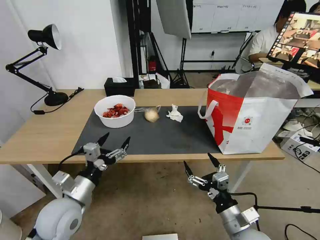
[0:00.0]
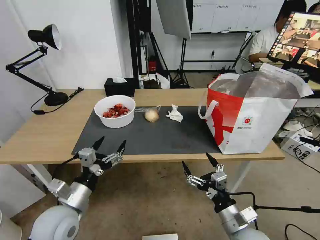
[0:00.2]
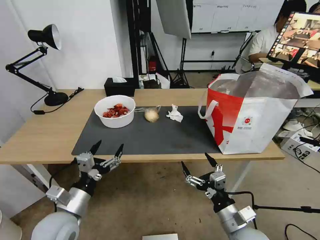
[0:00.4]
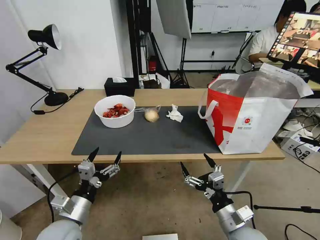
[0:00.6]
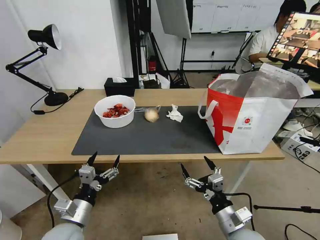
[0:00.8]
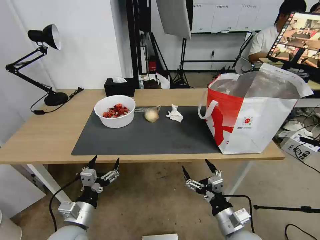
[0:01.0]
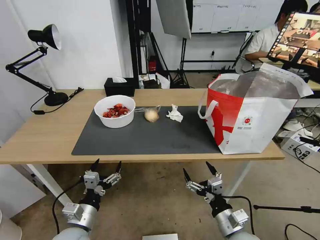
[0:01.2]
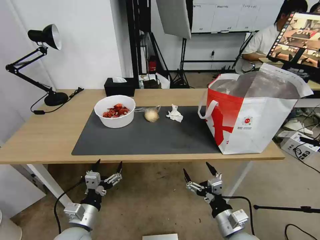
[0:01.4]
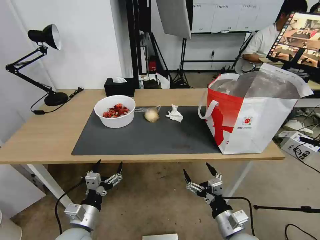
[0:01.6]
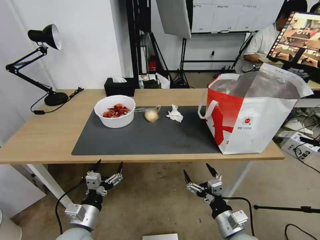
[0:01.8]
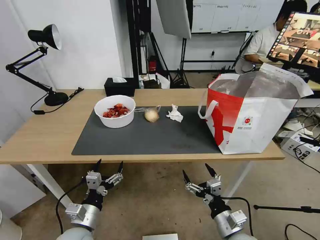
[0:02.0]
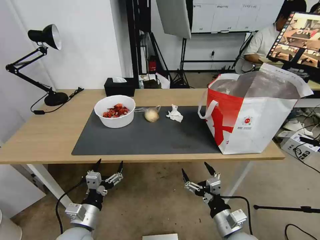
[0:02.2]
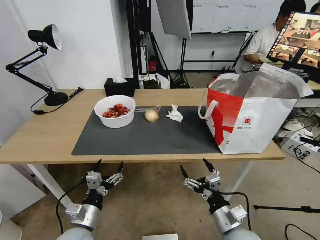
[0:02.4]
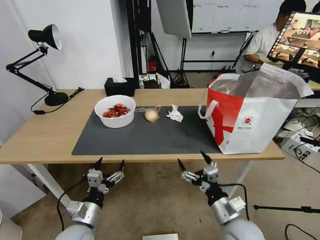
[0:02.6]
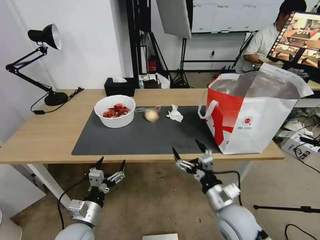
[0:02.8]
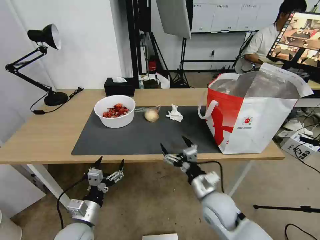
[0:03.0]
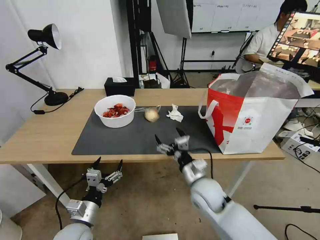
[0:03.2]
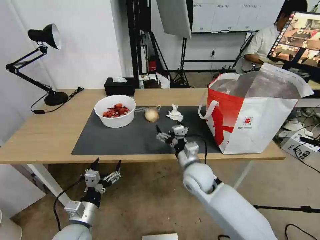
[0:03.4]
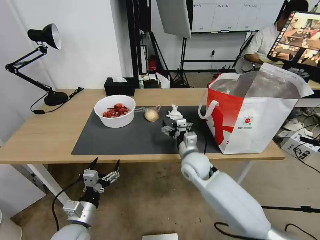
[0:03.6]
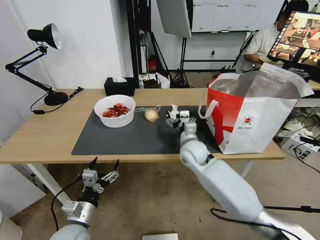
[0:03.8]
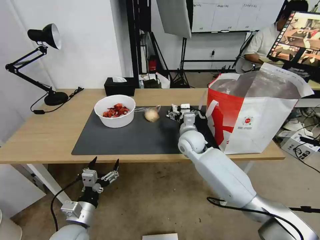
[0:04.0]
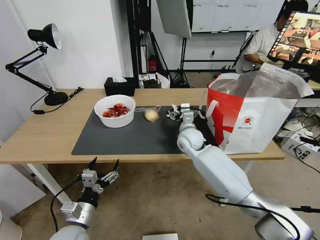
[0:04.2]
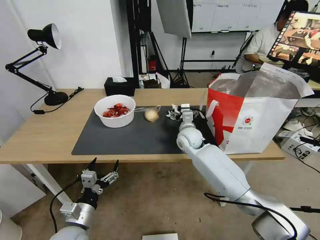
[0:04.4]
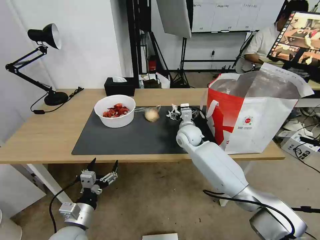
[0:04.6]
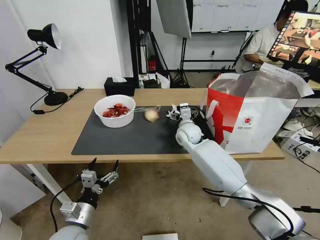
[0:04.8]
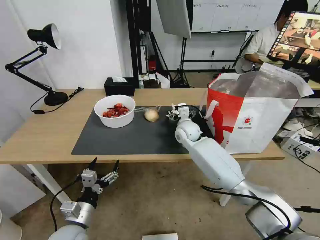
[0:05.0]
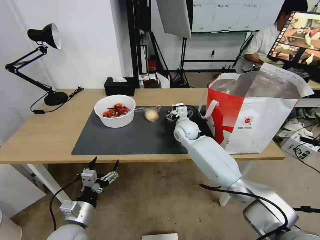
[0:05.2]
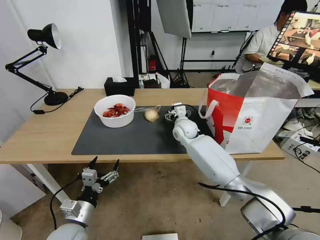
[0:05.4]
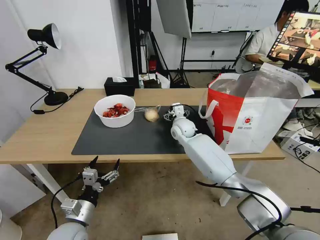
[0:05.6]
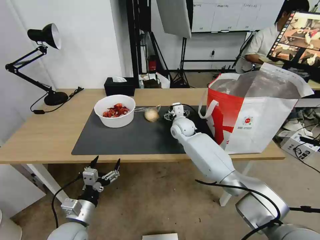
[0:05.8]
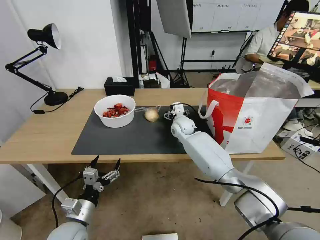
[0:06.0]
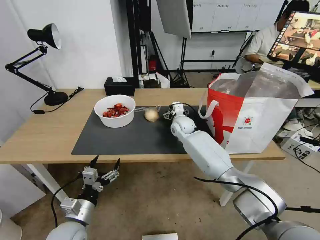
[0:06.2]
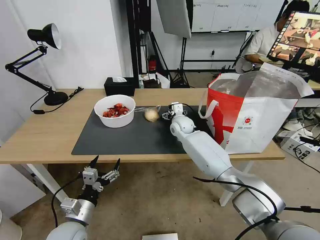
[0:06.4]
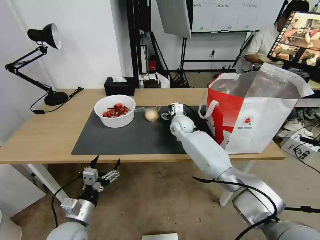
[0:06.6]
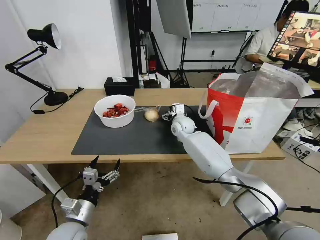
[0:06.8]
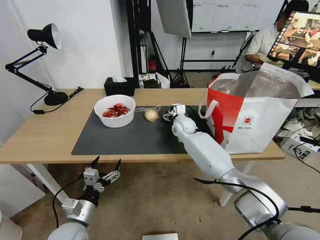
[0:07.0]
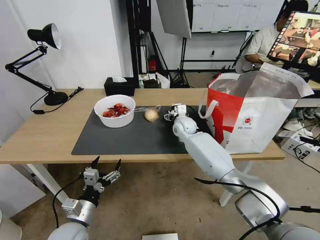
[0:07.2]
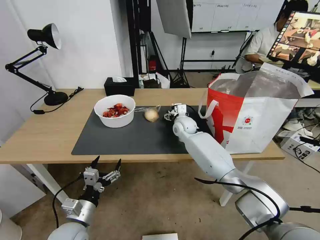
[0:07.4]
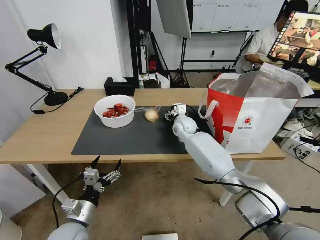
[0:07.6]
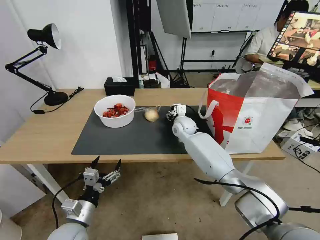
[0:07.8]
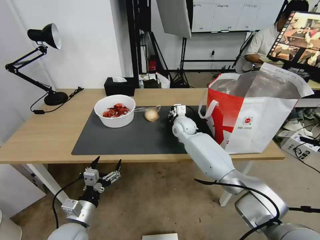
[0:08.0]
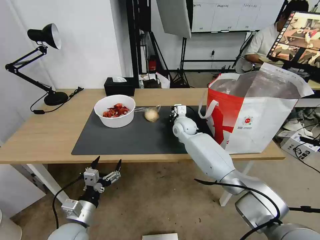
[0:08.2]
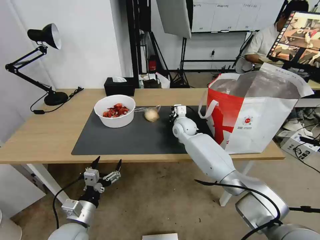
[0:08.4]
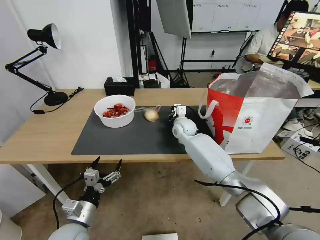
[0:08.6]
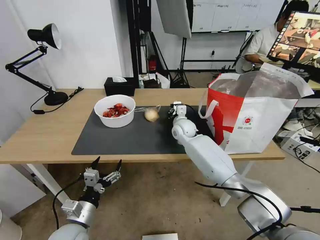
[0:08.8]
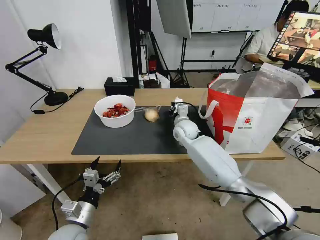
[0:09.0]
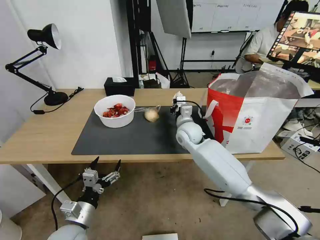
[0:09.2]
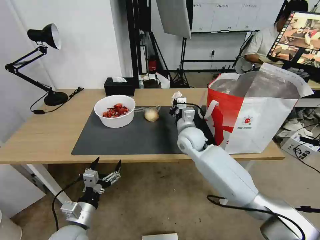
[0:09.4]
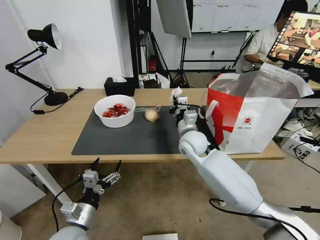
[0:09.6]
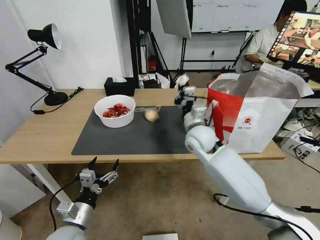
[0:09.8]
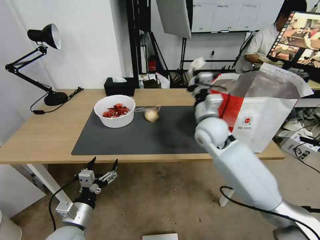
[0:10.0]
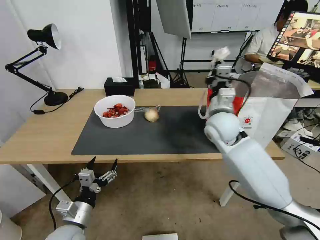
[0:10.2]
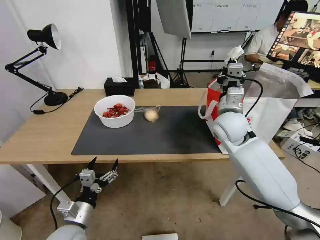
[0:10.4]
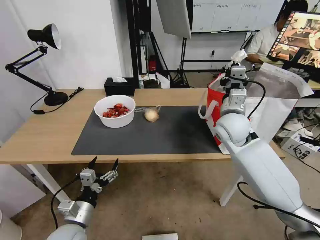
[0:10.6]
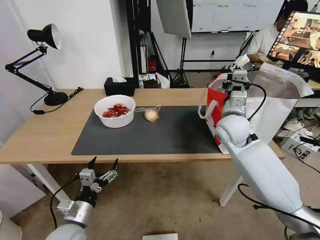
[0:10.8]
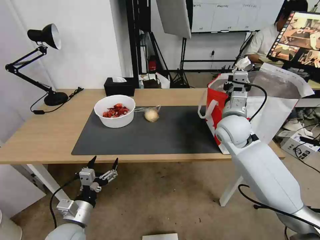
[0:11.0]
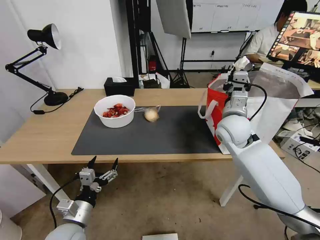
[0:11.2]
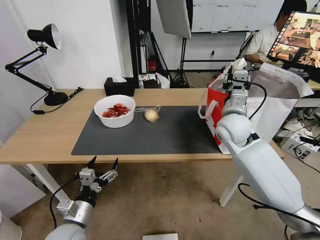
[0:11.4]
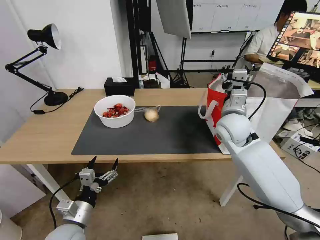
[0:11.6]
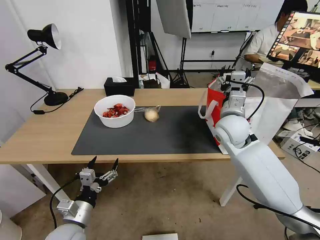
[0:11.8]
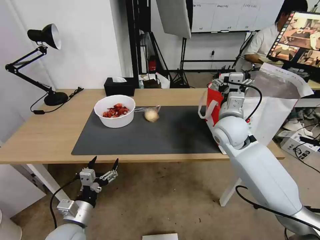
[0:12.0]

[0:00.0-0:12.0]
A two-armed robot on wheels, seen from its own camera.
Task of the whole recording: Pick up the trash from the table and place it into the takeout bag.
0:00.0 to 0:01.6: The left gripper moves downward and backward, about 10 cm.
0:01.6 to 0:03.0: The right gripper shifts some 10 cm forward and to the left.
0:03.0 to 0:04.4: The right gripper goes some 25 cm forward.
0:04.4 to 0:06.0: The right gripper shifts about 5 cm forward.
0:06.0 to 0:07.6: The grippers move only a little.
0:07.6 to 0:09.0: The right gripper closes its fingers.
0:09.0 to 0:10.4: The right gripper moves upward, to the right and backward, approximately 20 cm.
0:10.4 to 0:12.0: The right gripper opens up.

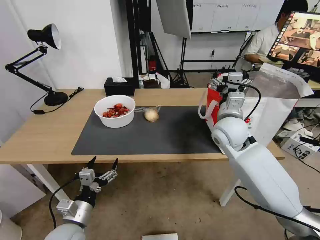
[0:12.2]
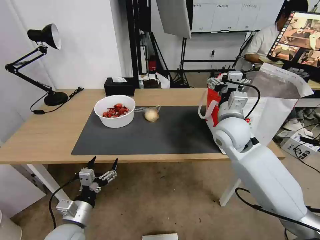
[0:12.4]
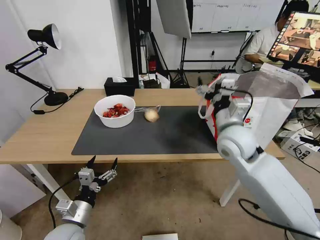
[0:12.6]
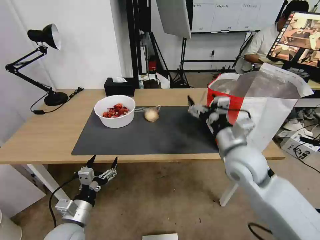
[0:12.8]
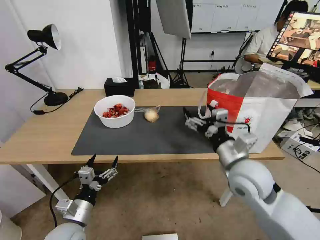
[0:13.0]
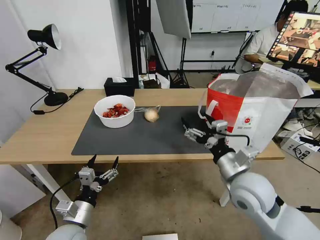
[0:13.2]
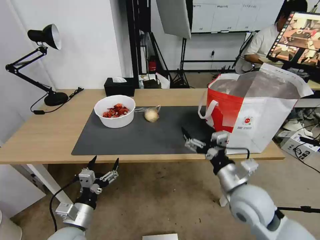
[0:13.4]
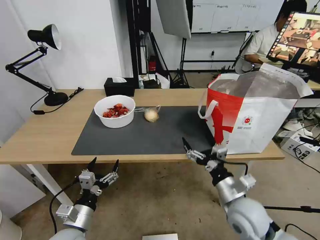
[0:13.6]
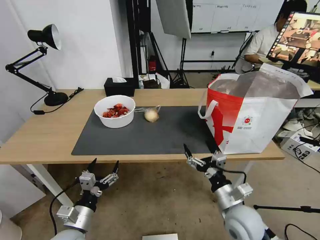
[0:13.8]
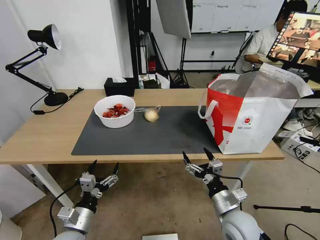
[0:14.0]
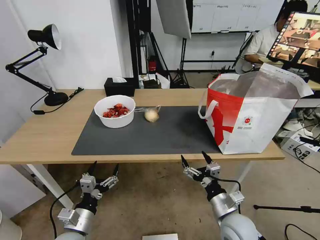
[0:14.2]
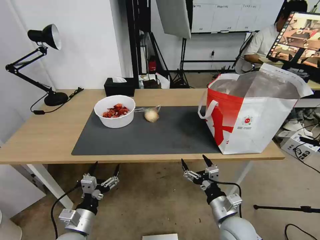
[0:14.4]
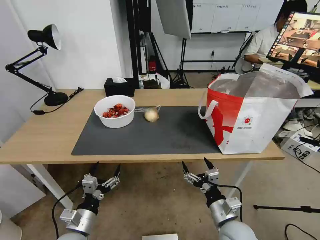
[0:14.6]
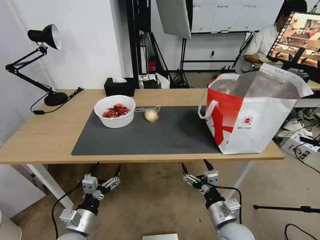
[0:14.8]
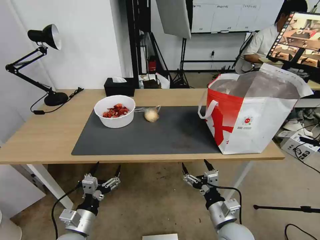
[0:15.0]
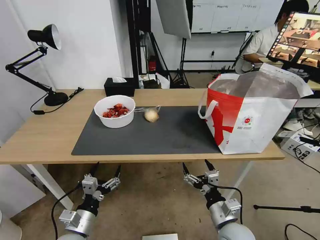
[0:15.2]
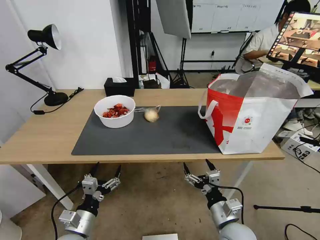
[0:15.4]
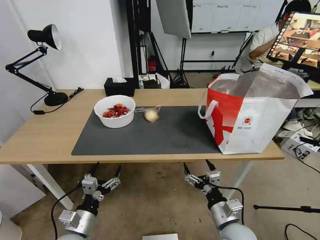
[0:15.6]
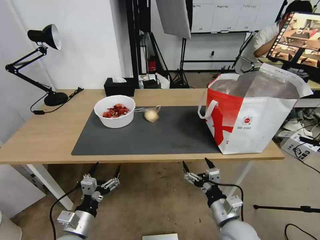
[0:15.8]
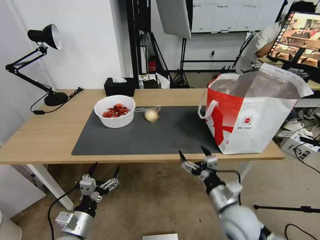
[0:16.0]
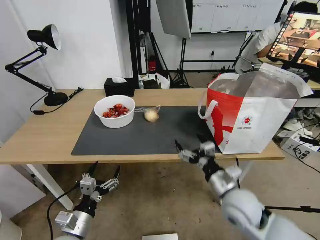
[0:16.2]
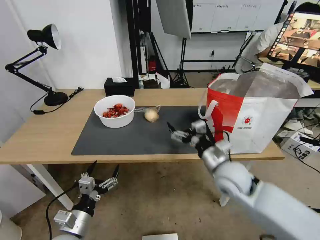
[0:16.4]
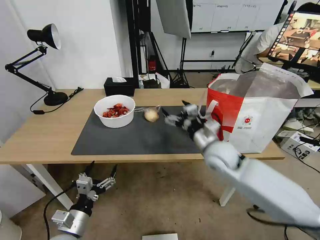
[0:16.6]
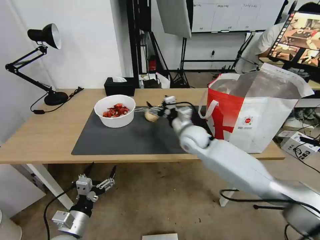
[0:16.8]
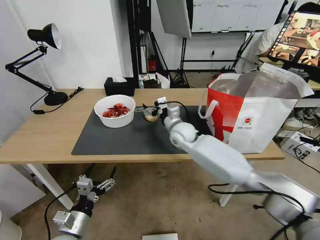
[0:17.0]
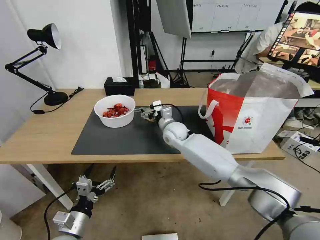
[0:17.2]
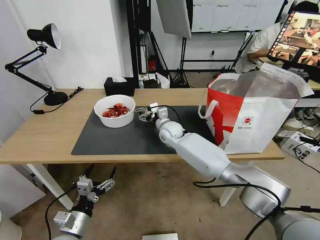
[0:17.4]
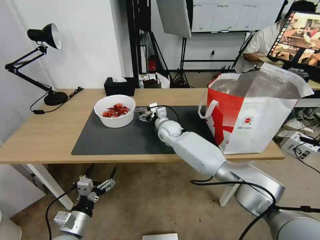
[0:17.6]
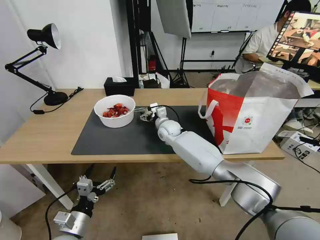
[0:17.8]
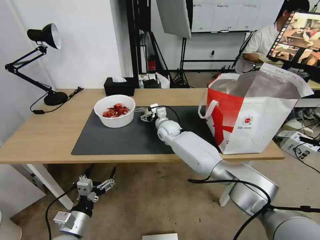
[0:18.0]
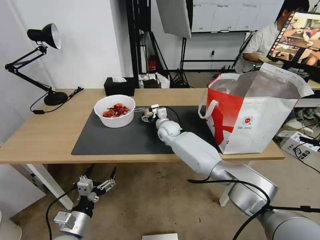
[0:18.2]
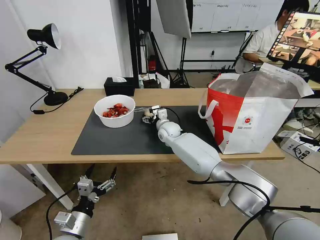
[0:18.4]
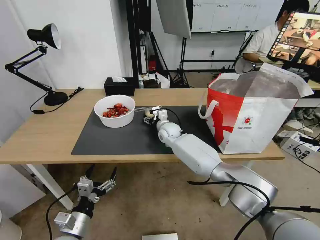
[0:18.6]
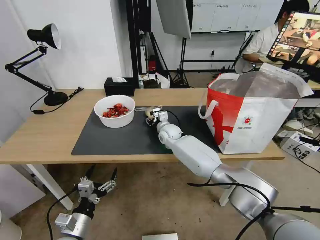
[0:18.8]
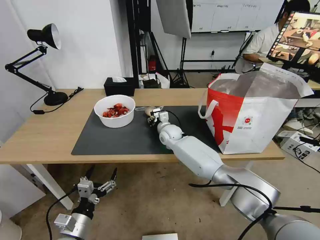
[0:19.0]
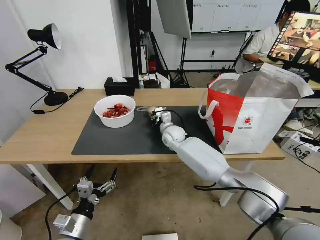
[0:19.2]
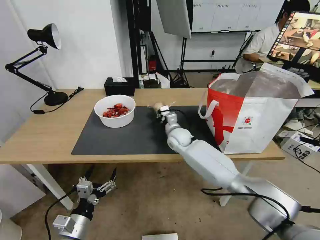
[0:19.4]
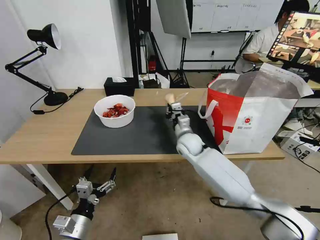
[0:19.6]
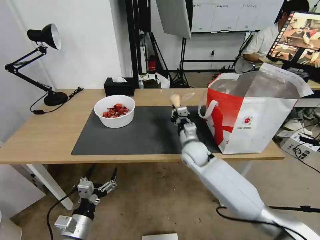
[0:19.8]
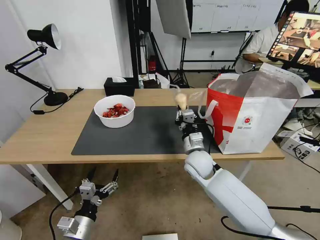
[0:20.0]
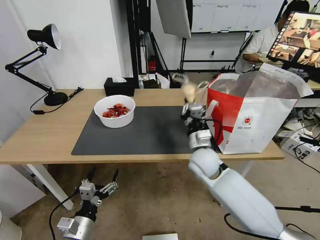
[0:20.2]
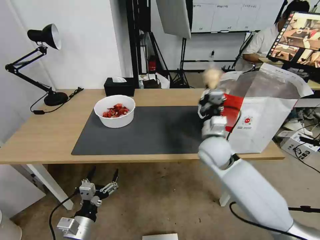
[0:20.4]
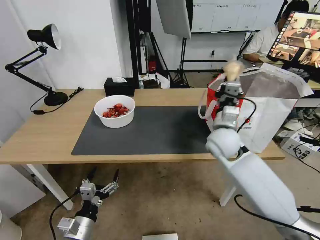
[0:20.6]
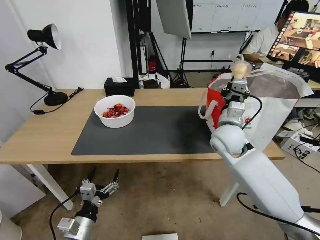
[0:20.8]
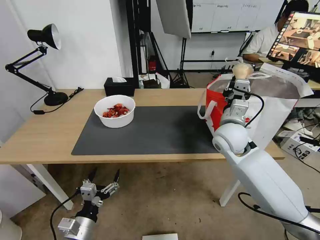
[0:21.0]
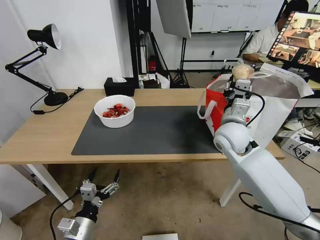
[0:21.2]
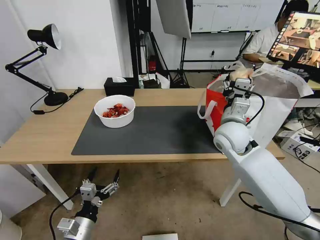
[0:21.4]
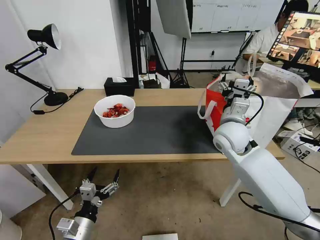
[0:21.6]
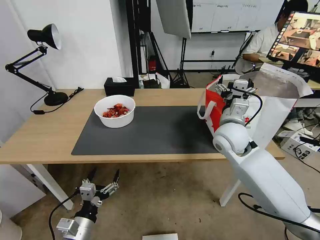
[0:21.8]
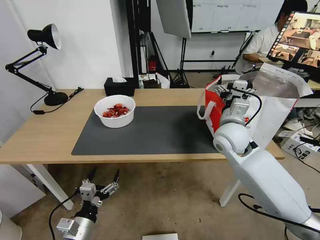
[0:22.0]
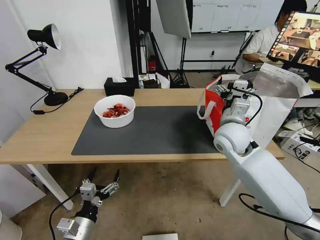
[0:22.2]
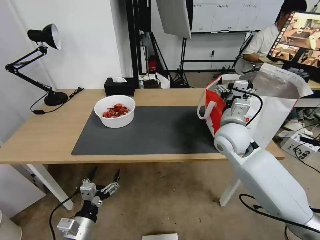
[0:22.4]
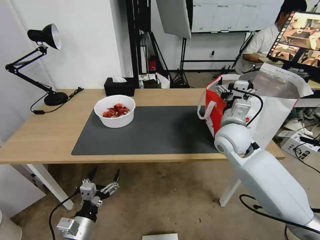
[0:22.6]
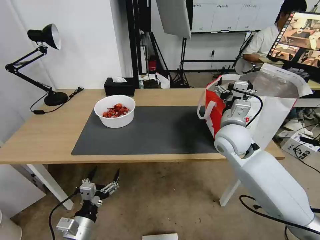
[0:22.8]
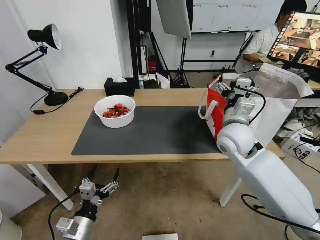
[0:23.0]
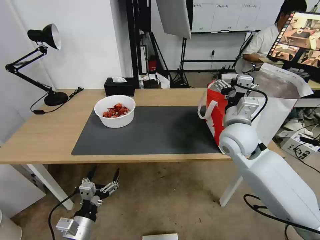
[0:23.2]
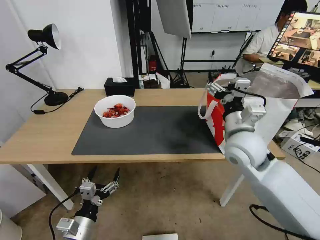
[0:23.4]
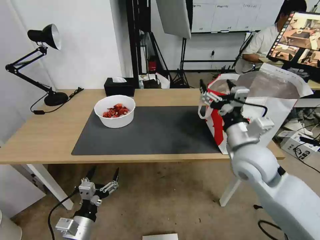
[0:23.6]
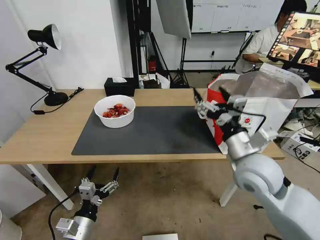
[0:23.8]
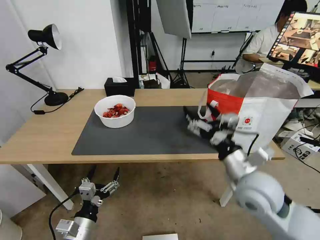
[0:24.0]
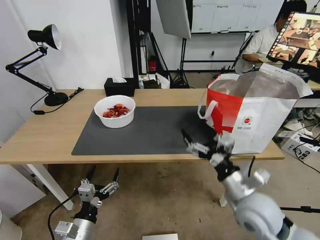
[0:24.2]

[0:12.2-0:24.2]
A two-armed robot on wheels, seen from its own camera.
Task of the whole recording: Pick up the trash from the table and place it into the takeout bag.
0:12.2 to 0:13.8: The right gripper shifts about 25 cm backward and downward.
0:13.8 to 0:15.2: The right gripper moves about 5 cm.
0:15.2 to 0:16.6: The right gripper moves forward and upward, some 25 cm.
0:16.6 to 0:18.2: The right gripper travels forward, to the left and downward by some 25 cm.
0:18.2 to 0:19.8: The right gripper is displaced backward and to the right by approximately 15 cm, and closes.
0:19.8 to 0:21.2: The right gripper heads upward and to the right, covering some 15 cm.
0:21.2 to 0:22.6: The right gripper opens up.
0:22.6 to 0:24.2: The right gripper is displaced backward by approximately 20 cm.
